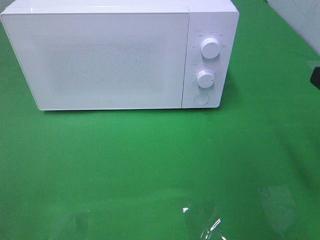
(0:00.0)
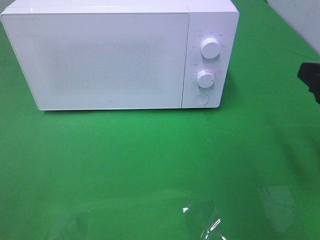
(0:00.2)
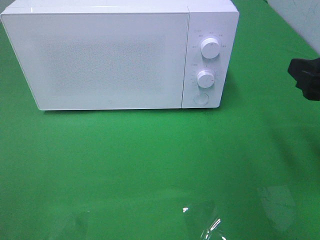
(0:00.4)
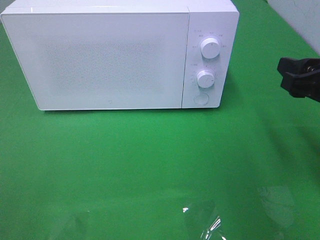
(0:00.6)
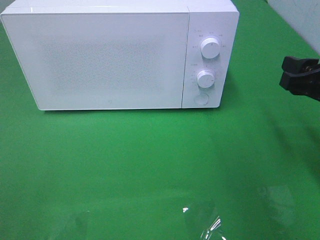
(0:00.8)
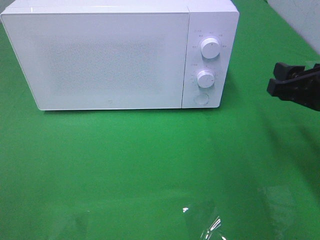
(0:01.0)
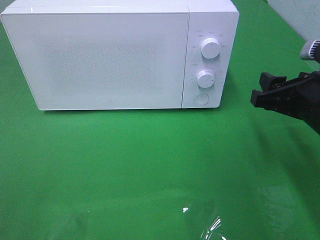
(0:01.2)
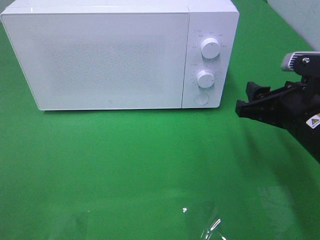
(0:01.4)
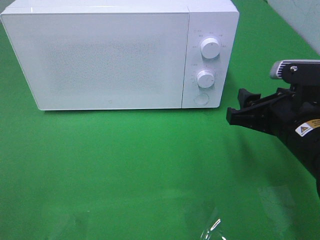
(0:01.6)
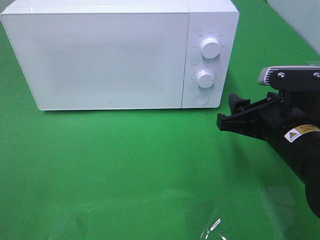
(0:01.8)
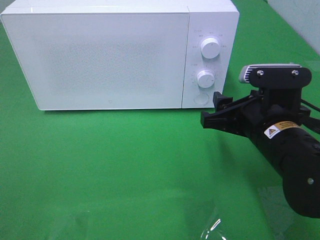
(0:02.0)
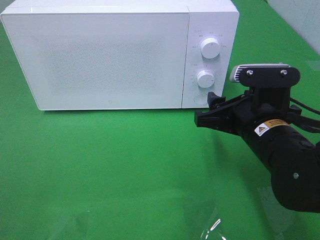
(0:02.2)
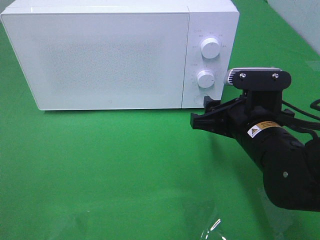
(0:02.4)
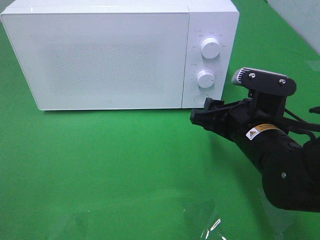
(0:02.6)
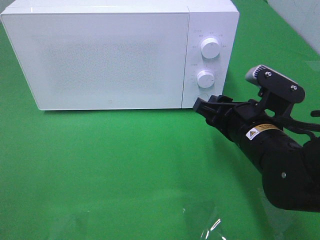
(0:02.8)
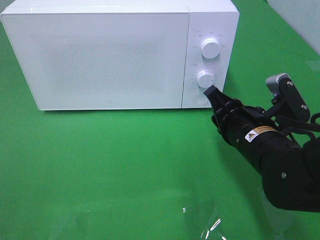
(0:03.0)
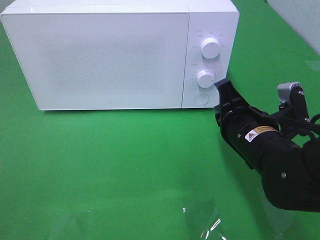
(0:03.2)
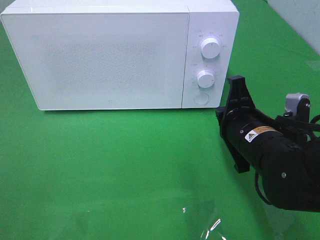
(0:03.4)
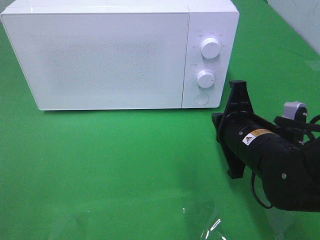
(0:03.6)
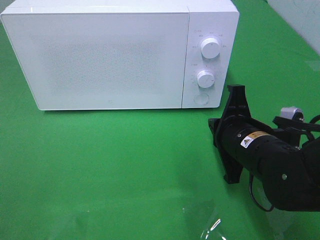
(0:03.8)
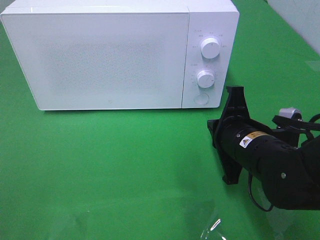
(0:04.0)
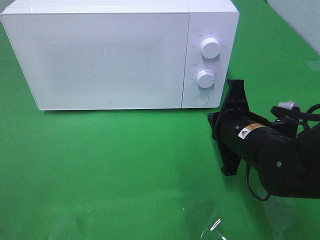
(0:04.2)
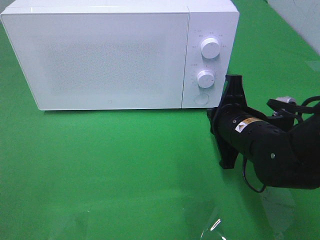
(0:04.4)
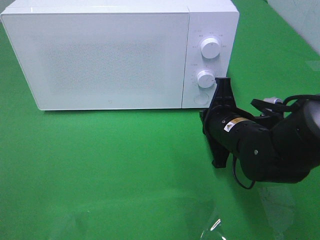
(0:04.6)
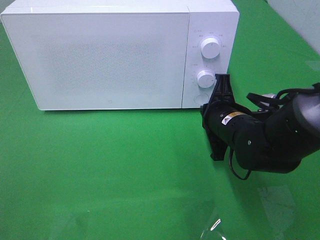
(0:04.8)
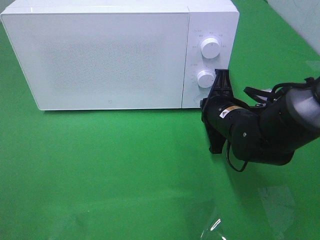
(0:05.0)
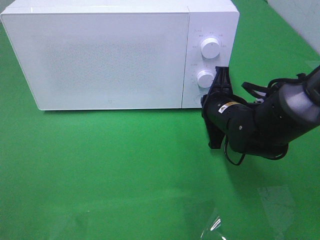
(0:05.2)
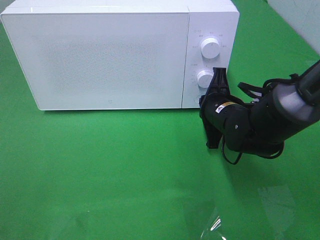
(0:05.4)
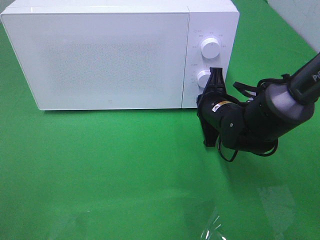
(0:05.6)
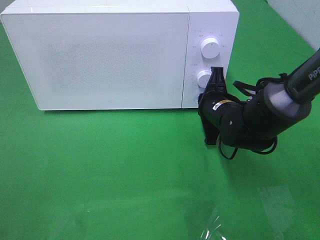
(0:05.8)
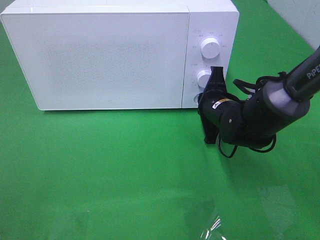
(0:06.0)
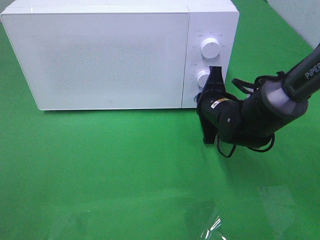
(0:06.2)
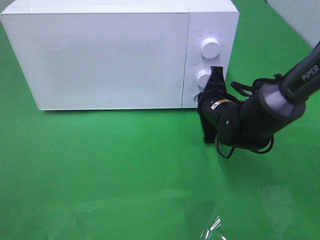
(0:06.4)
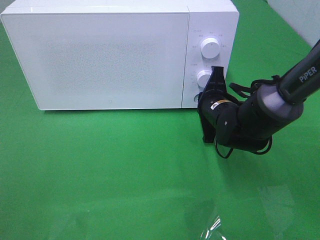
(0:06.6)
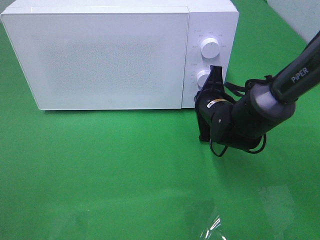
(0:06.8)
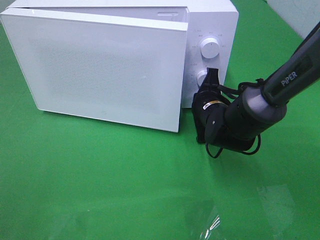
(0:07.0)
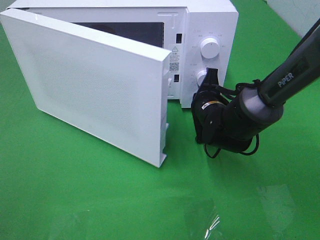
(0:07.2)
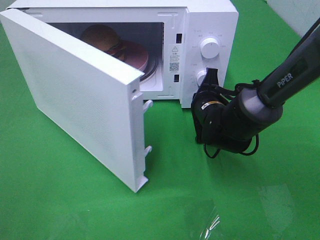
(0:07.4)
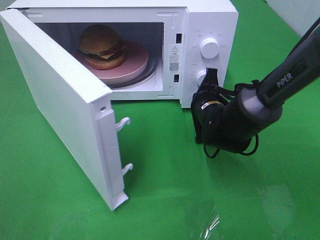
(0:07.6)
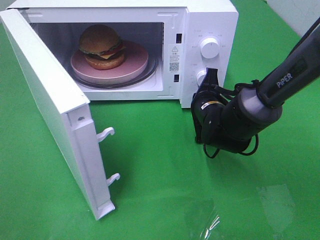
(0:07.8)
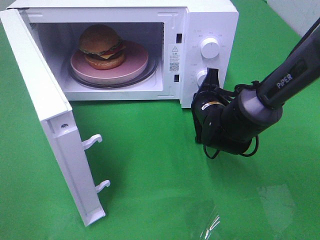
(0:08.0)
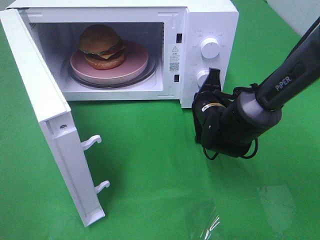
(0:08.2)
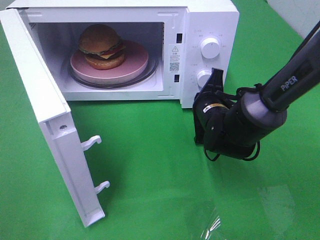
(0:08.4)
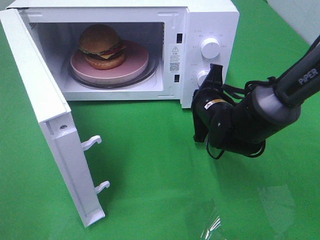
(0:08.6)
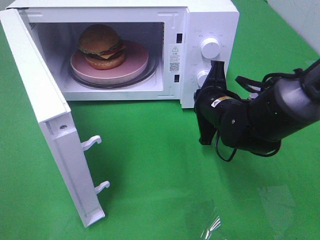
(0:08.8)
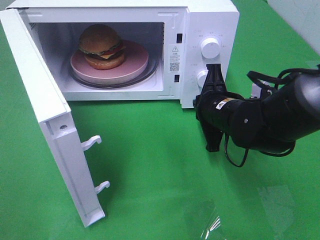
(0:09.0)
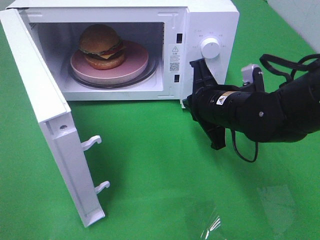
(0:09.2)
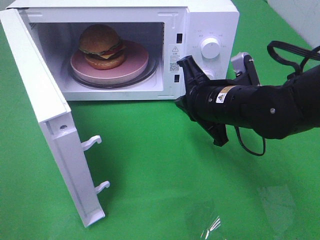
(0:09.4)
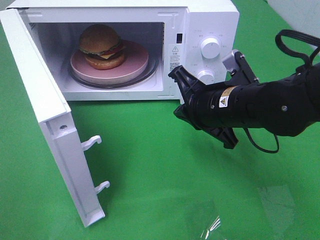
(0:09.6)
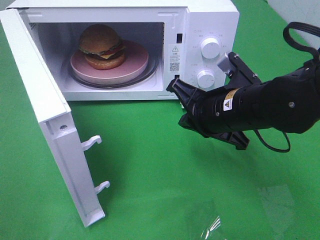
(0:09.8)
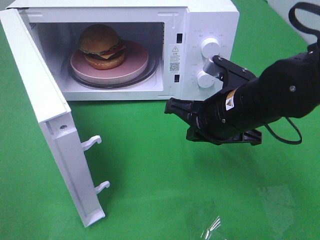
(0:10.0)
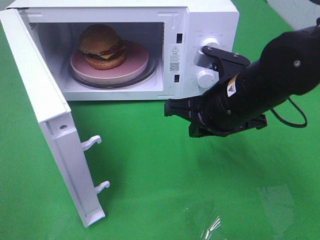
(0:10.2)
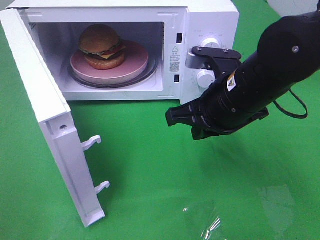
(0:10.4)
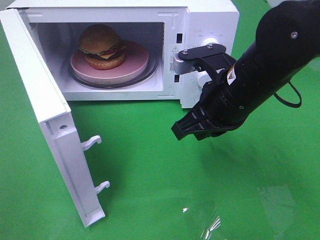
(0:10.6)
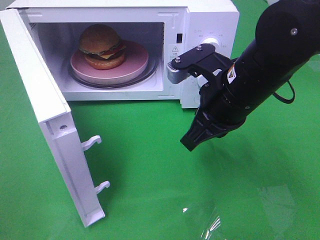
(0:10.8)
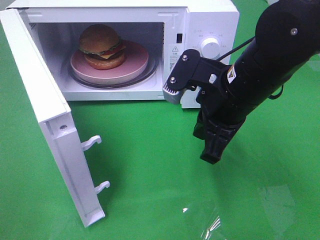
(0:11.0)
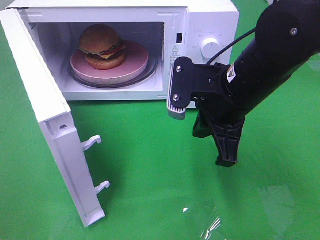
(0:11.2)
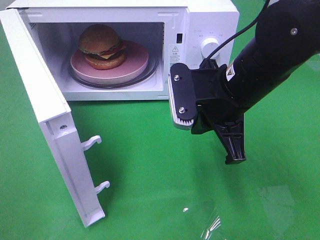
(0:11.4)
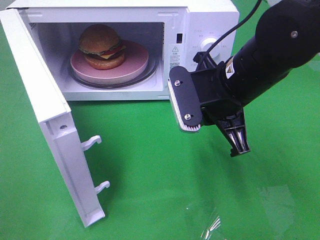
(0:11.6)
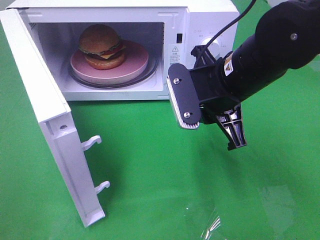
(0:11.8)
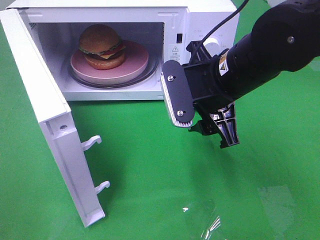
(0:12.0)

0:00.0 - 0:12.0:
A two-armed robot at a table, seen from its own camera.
Task of the whole recording: Heat the burger.
Step, 0:00.0 - 0:08.8: Right hand: press the switch.
0:00.0 - 0:01.6: The right gripper heads downward, to the left and forward, covering some 15 cm.
0:01.6 - 0:03.0: The right gripper moves roughly 5 cm, and closes its fingers.
0:04.4 - 0:06.0: The right gripper travels forward by approximately 10 cm.
0:07.6 - 0:09.0: The right gripper moves backward, approximately 5 cm.
0:09.0 - 0:10.4: The right gripper travels upward by about 10 cm.
0:10.4 - 0:12.0: The right gripper opens up.

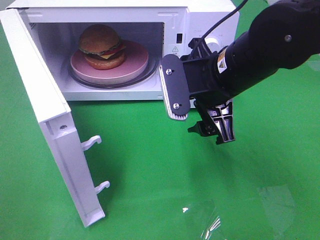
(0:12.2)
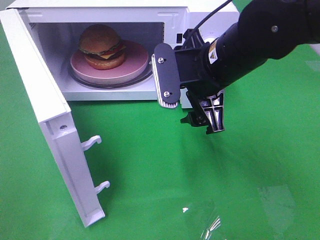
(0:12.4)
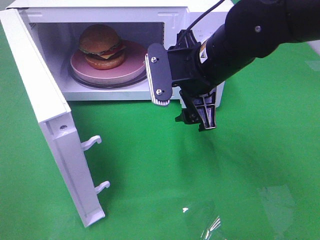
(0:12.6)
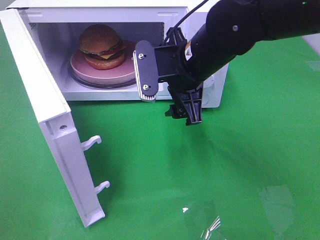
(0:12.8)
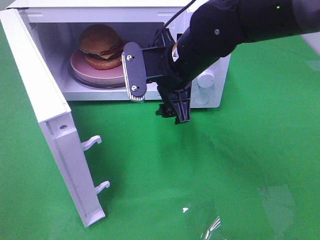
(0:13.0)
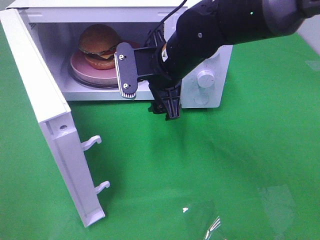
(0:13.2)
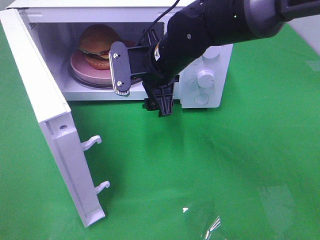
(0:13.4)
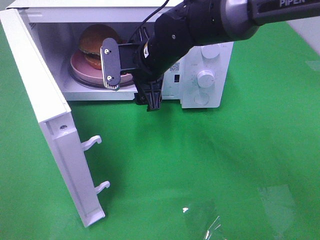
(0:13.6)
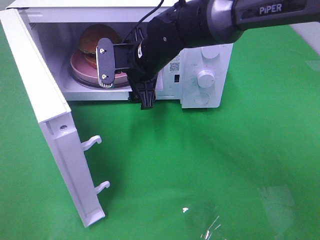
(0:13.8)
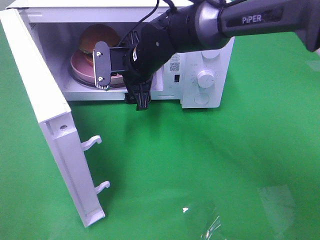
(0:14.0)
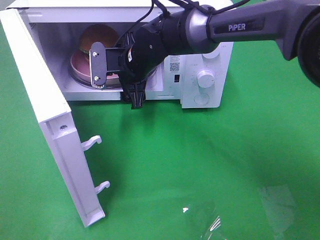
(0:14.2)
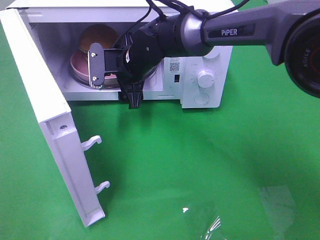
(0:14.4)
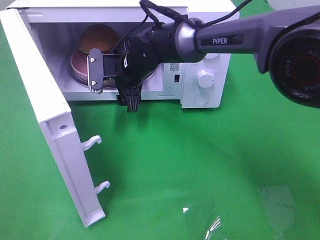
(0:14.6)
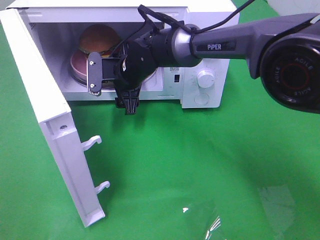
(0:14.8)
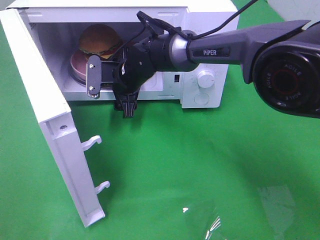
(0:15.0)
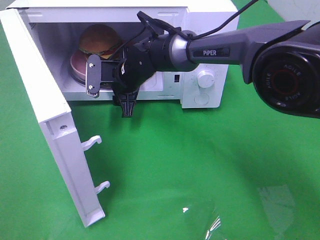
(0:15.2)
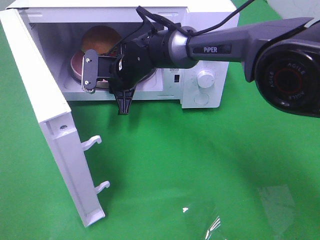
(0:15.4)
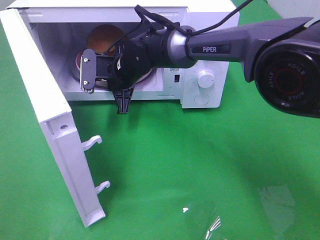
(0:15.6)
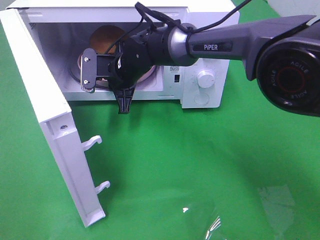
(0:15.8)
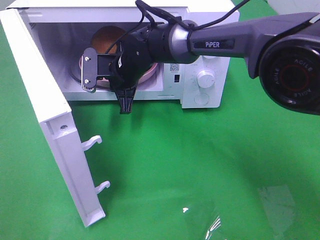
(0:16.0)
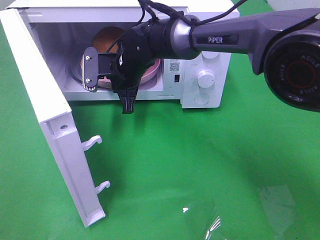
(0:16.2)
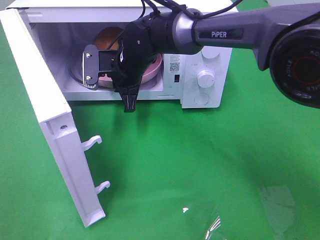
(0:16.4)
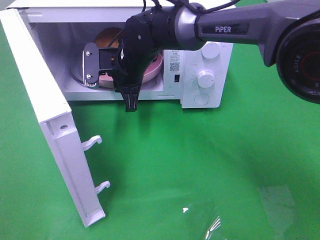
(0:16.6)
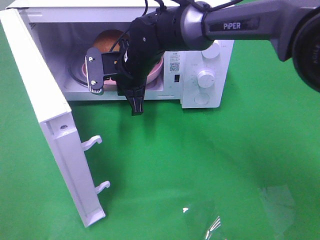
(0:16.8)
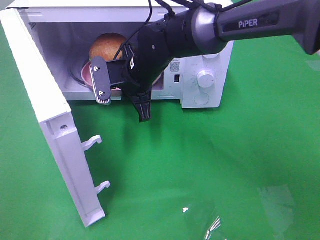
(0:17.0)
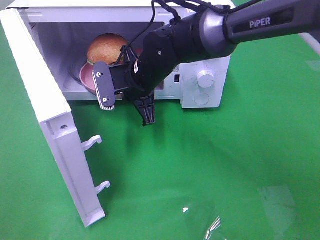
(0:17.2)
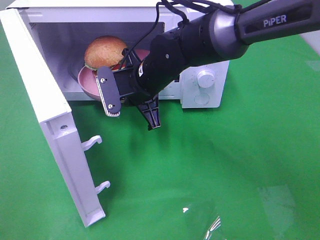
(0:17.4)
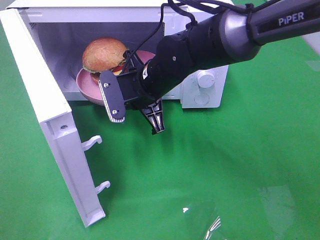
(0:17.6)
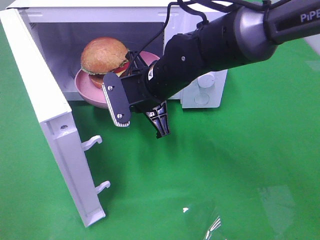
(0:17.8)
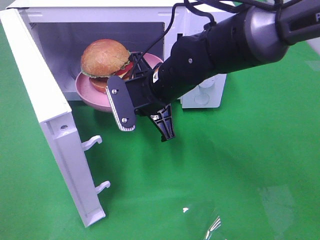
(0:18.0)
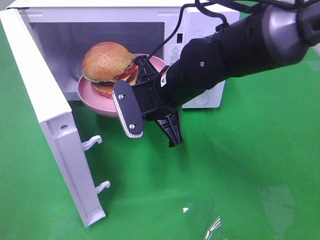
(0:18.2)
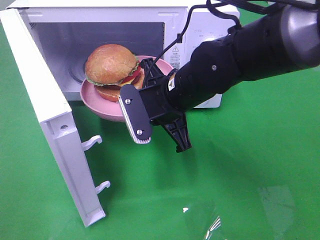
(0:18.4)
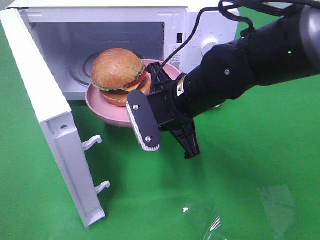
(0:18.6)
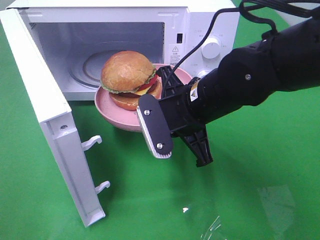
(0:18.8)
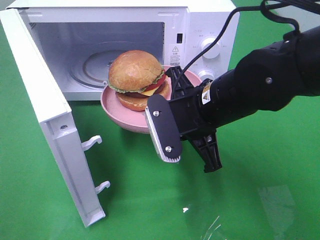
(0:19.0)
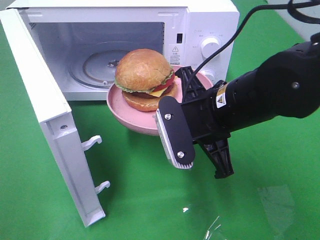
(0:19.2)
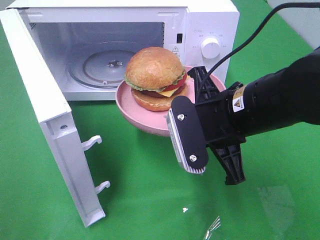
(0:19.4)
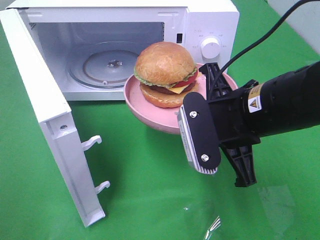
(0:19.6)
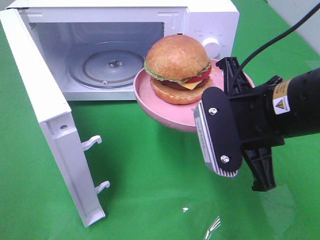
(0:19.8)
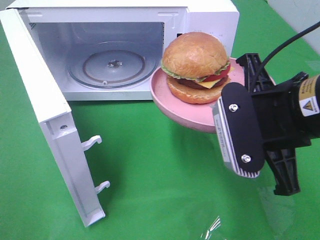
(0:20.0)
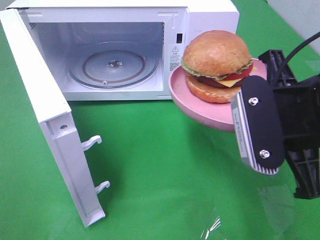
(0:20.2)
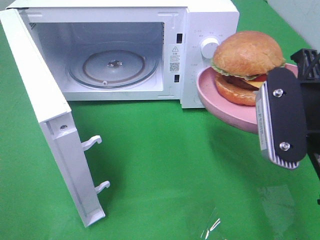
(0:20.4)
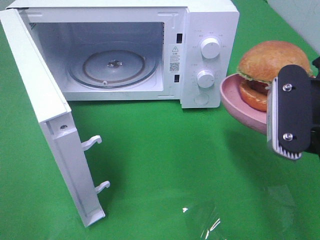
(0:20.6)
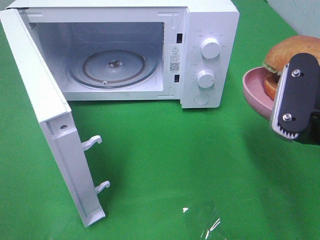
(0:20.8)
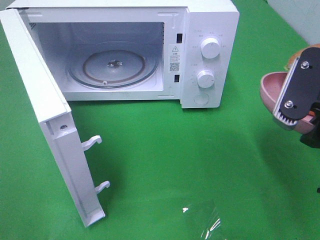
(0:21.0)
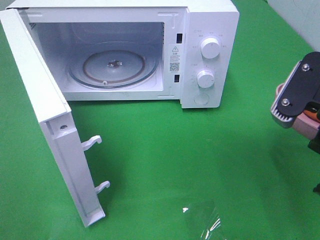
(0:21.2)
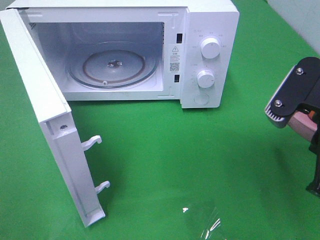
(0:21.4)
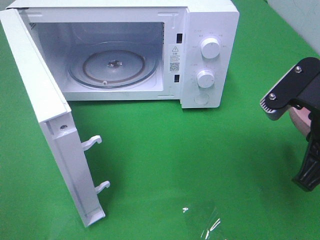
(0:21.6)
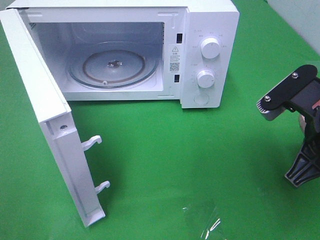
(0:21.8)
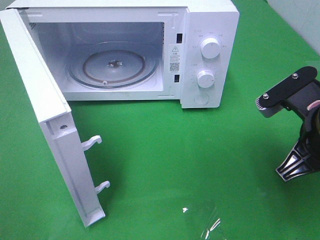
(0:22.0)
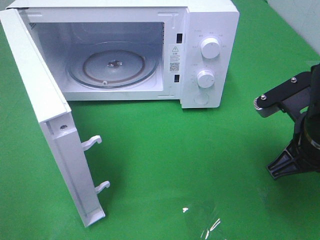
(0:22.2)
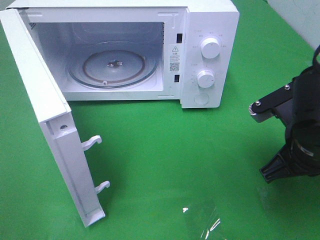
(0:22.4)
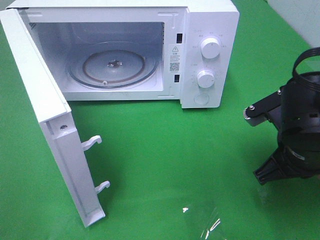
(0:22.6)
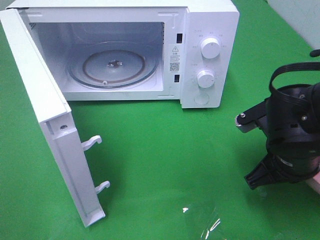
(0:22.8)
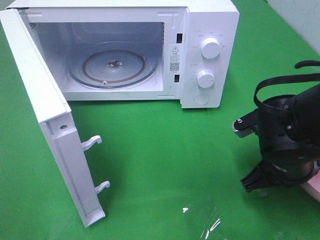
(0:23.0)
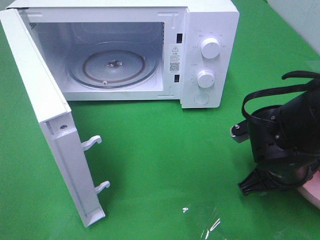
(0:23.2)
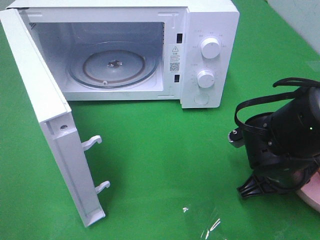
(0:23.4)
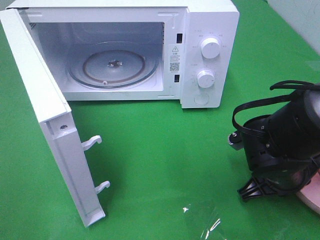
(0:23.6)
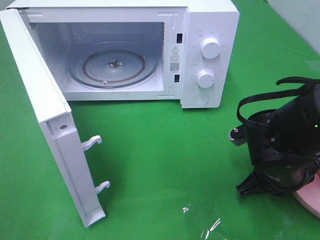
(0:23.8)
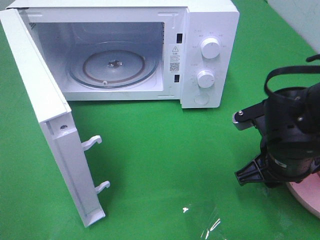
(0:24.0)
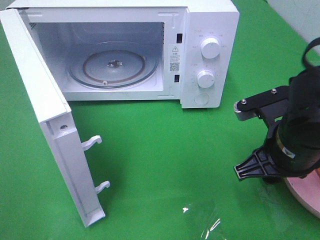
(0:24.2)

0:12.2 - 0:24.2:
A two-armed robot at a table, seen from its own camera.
Task of the whole recording: Heat the burger.
Step, 0:12.2 - 0:15.6: Right hand: grab the plate with the hamburger.
Step, 0:15.8 - 0:24.2: Right hand: place the plate on the table.
0:12.2 - 0:13.8: The right gripper moves forward and to the left, some 15 cm.
0:13.8 - 0:15.2: The right gripper goes some 5 cm downward.
0:15.2 - 0:16.6: The right gripper closes.
0:16.6 - 0:18.2: The right gripper heads backward and to the right, covering about 10 cm.
0:18.2 - 0:19.8: The right gripper is displaced backward, to the right and upward by approximately 15 cm.
0:19.8 - 0:21.2: The right gripper moves to the right, approximately 5 cm.
0:21.2 - 0:22.6: The right gripper is displaced downward by approximately 10 cm.
0:22.6 - 0:24.2: The right gripper goes downward and returns, some 5 cm each way, and opens up.
